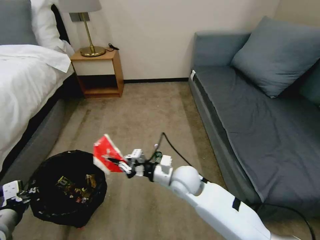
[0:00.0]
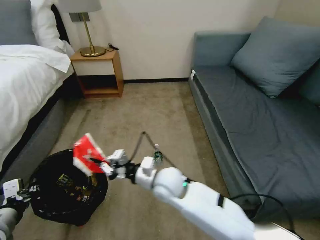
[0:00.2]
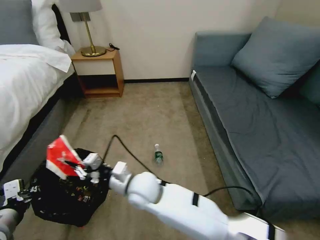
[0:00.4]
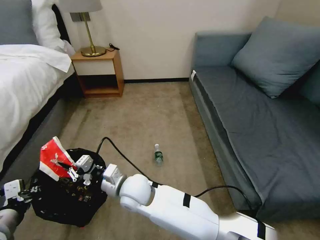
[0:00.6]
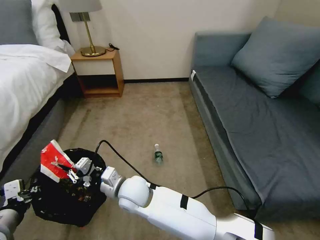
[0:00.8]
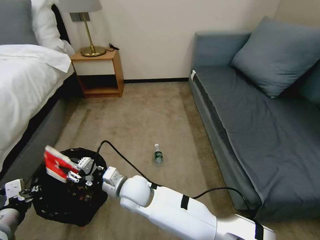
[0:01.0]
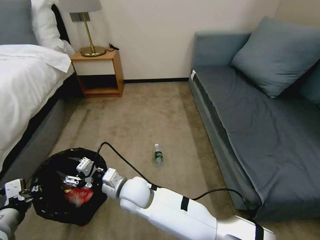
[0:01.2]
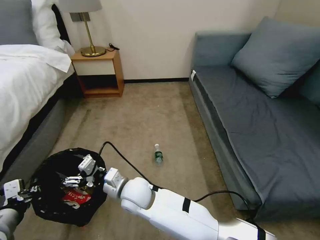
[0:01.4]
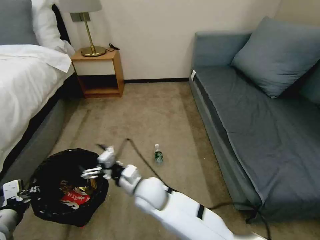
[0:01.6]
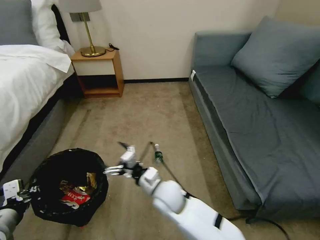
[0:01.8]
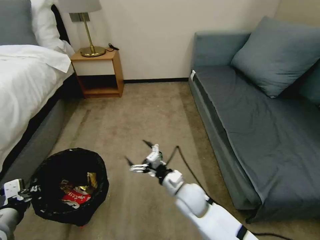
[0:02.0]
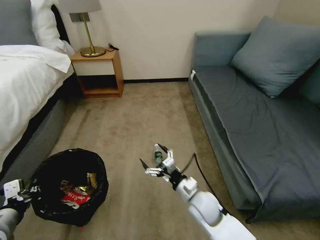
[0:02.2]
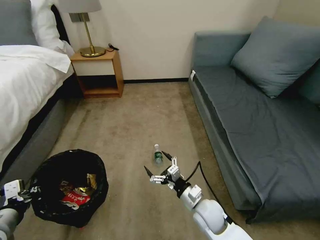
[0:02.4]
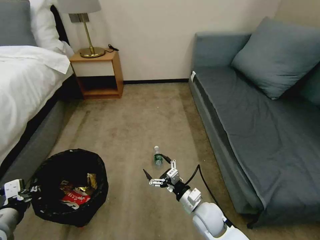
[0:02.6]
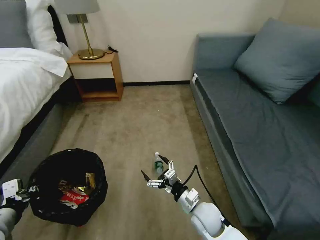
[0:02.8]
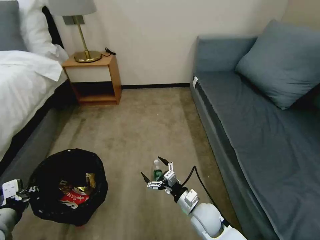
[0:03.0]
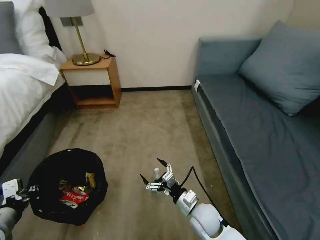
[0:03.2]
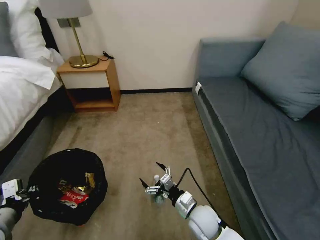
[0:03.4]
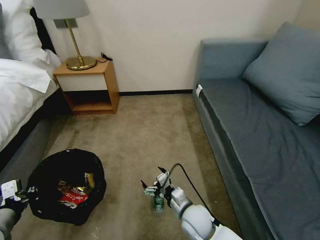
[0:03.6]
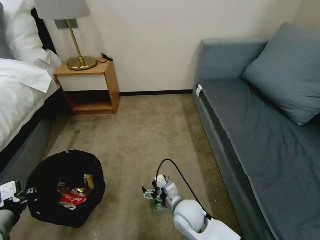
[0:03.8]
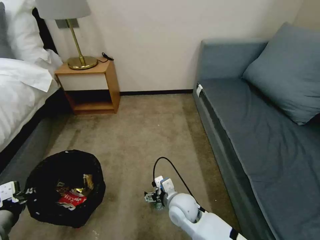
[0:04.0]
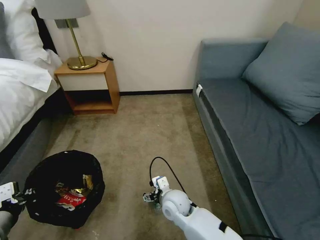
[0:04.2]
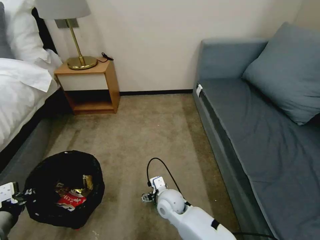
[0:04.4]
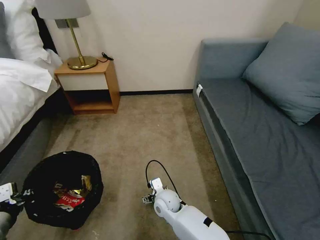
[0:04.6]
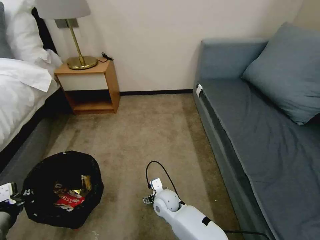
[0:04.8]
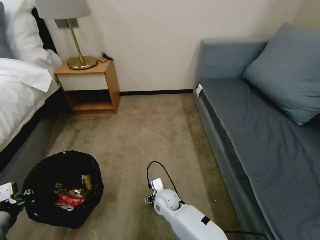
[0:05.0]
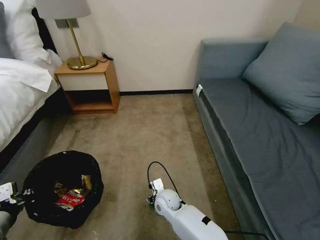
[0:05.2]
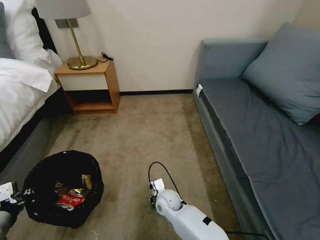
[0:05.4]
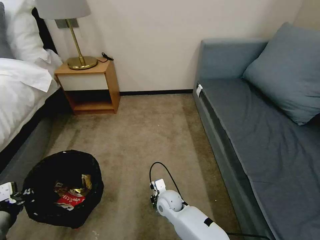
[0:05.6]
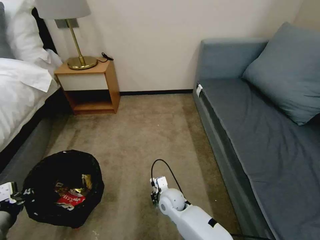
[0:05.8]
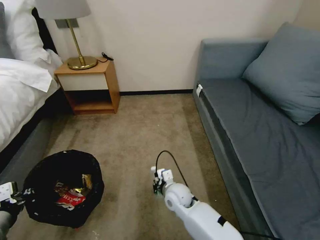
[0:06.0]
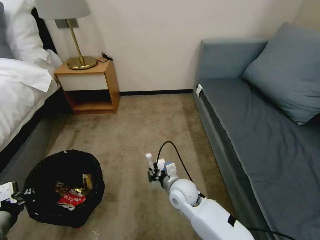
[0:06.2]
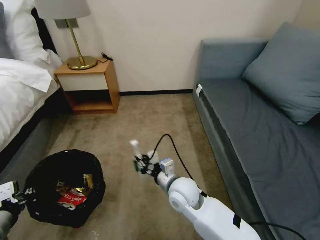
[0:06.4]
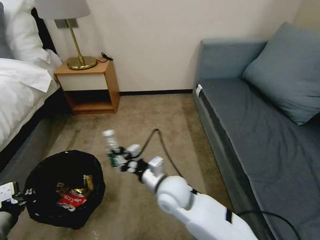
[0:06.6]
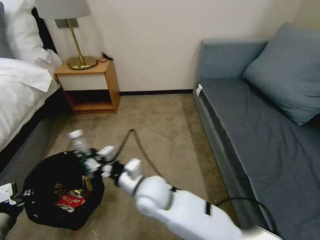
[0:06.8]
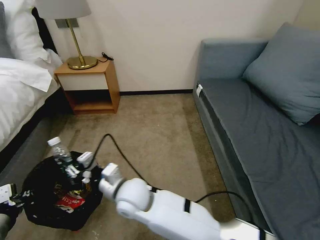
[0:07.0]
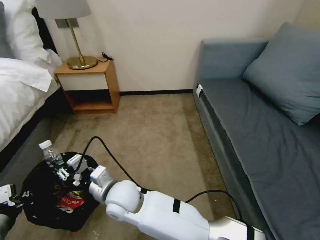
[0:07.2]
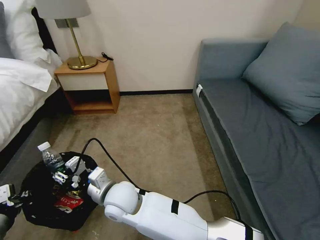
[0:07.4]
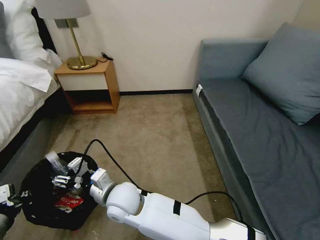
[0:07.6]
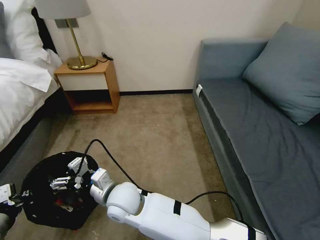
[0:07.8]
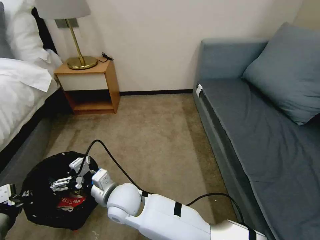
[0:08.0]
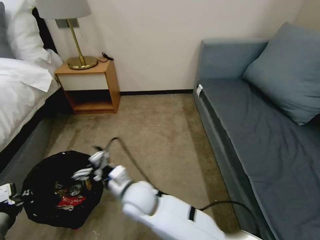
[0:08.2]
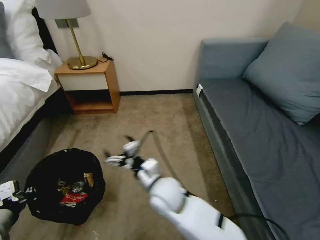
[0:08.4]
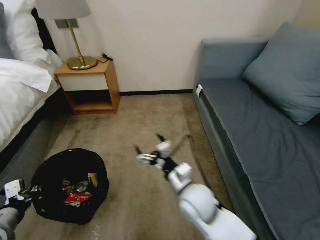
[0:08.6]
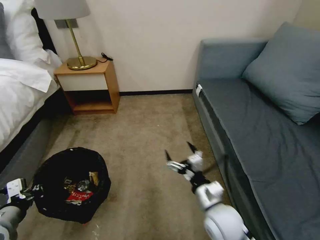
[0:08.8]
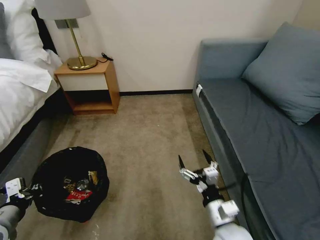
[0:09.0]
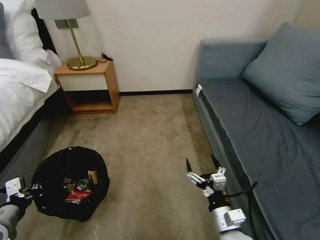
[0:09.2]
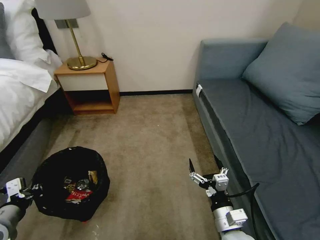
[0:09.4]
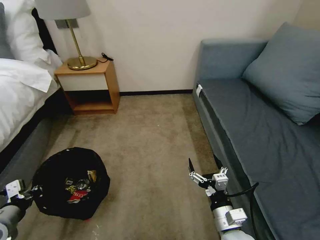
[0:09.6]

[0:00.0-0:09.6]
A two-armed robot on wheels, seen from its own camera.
Task of the whole recording: Pick up the trash bin, then pick up the garbage on the floor and place it into the trash bin.
0:00.0 to 0:01.6: The right gripper is displaced to the left by roughly 15 cm, and opens.
0:01.6 to 0:03.2: The right gripper moves to the right and downward, some 20 cm.
0:03.2 to 0:04.8: The right gripper heads to the left and forward, covering roughly 15 cm.
0:04.8 to 0:06.4: The right gripper goes roughly 15 cm upward, and closes up.
0:06.4 to 0:08.0: The right gripper shifts roughly 20 cm to the left, and opens up.
0:08.0 to 0:09.6: The right gripper moves to the right, some 30 cm.

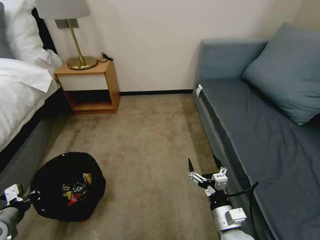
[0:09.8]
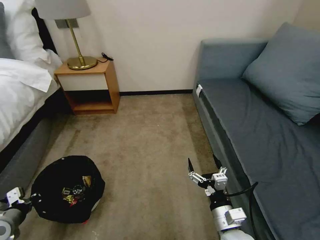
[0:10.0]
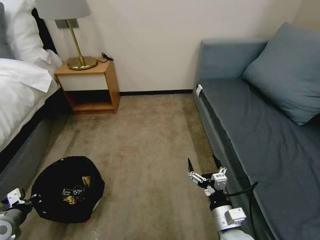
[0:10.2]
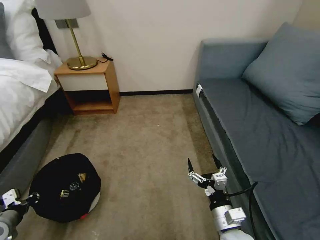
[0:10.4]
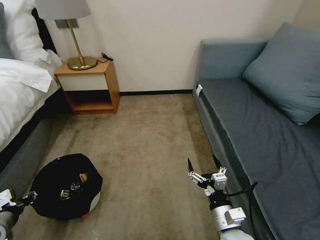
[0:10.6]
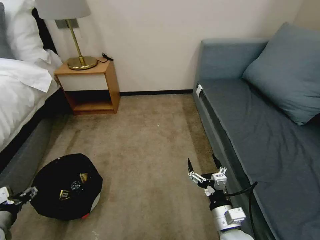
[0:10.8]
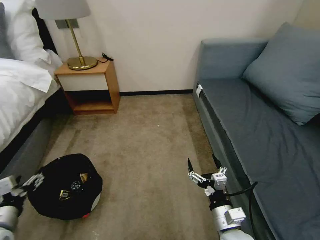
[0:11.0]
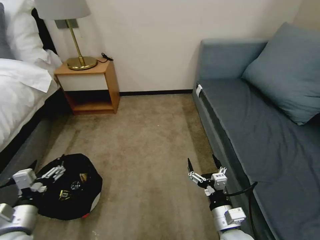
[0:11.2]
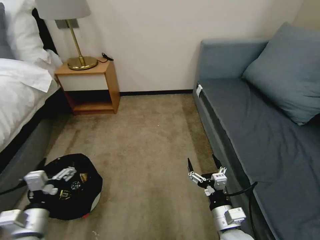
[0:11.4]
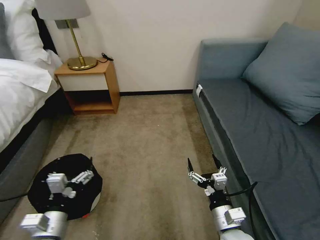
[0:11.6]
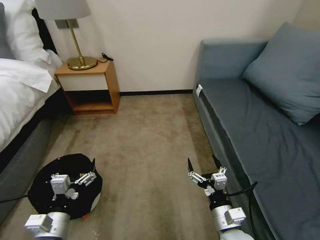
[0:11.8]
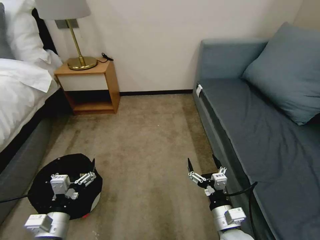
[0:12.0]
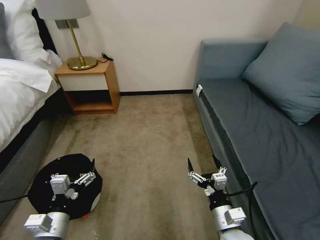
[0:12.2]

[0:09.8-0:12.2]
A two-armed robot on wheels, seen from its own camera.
Task of the whole recording: Pick up the trash bin, then pick up the garbage on the floor and place it into the trash bin.
0:09.8 to 0:11.0: The left gripper opens.
0:11.0 to 0:12.2: The left gripper goes about 15 cm to the right.
